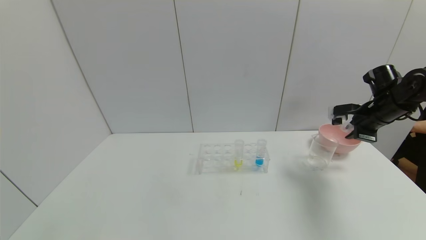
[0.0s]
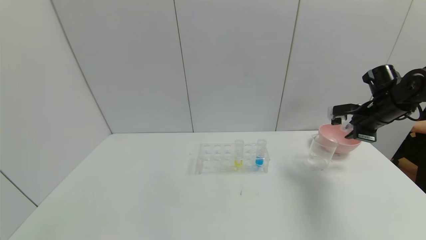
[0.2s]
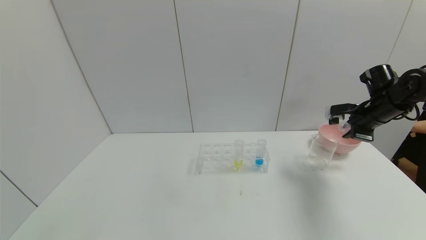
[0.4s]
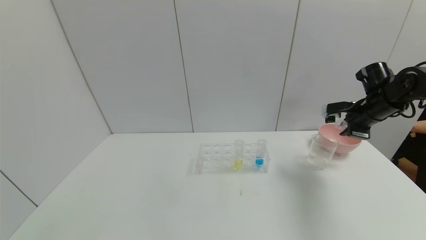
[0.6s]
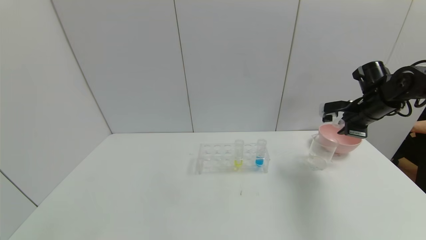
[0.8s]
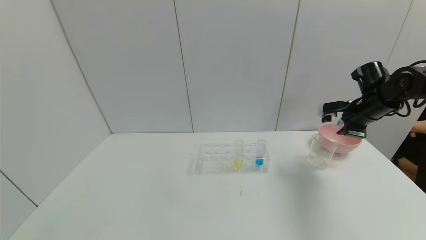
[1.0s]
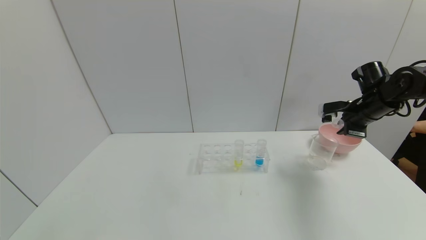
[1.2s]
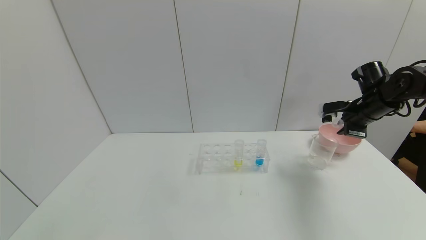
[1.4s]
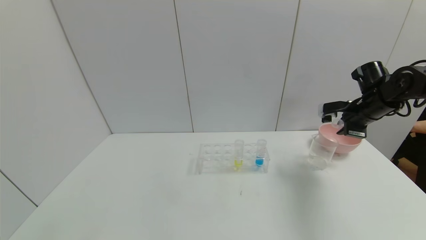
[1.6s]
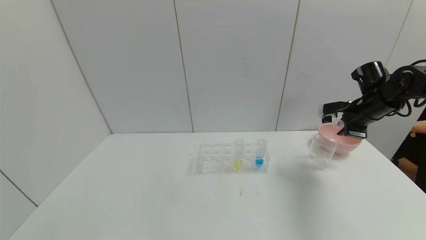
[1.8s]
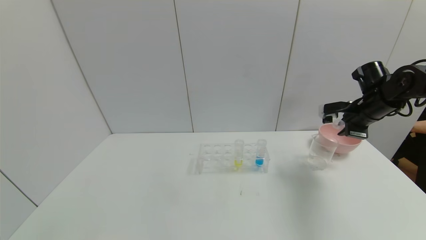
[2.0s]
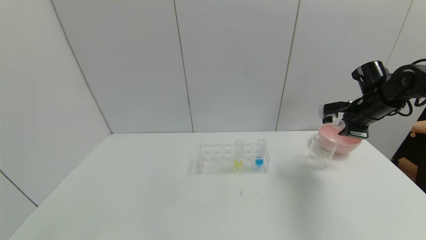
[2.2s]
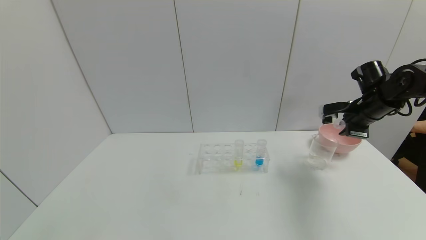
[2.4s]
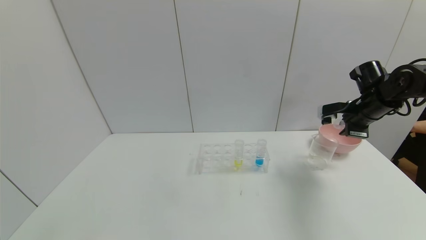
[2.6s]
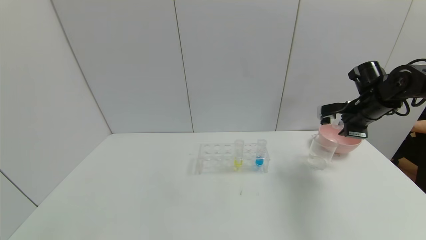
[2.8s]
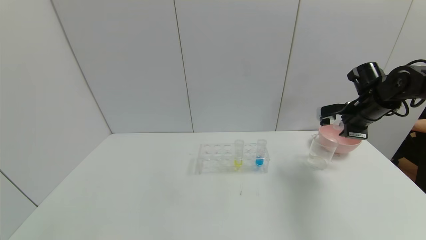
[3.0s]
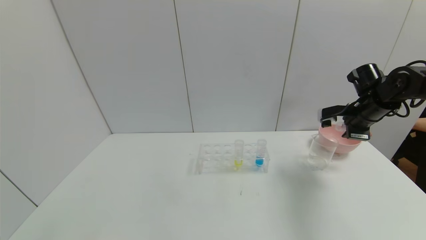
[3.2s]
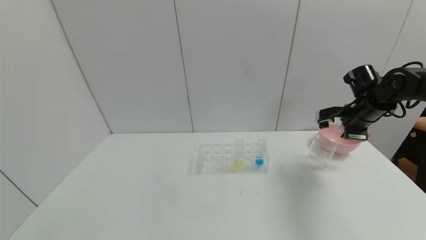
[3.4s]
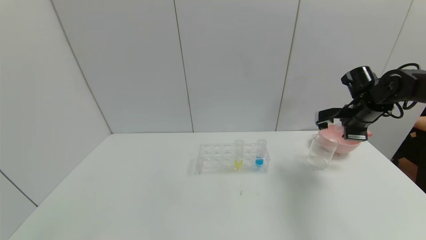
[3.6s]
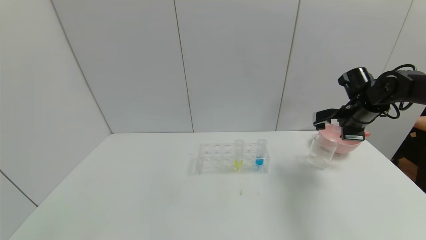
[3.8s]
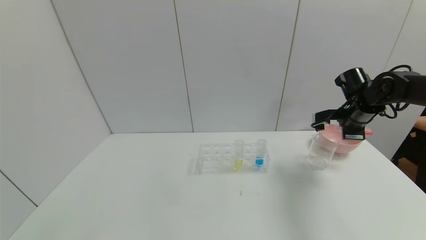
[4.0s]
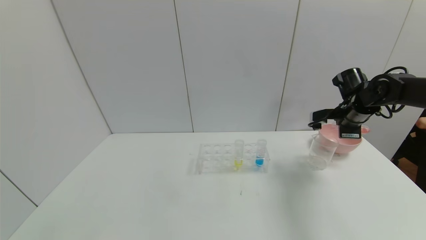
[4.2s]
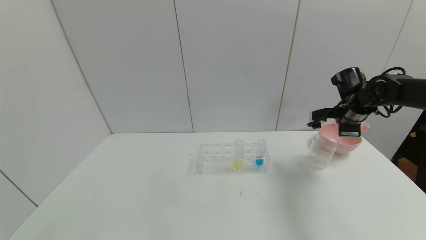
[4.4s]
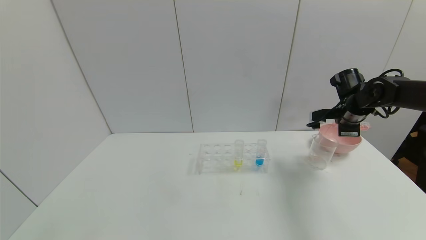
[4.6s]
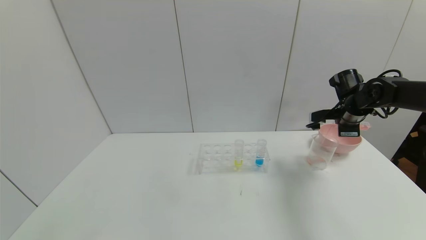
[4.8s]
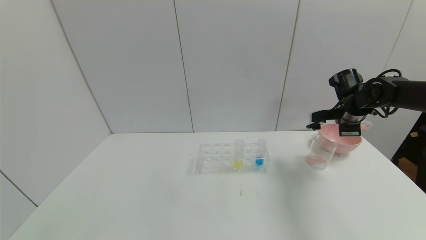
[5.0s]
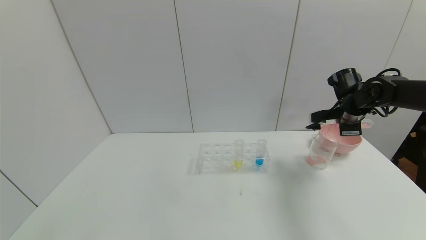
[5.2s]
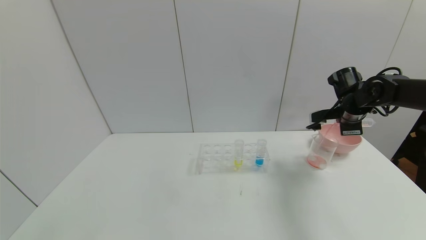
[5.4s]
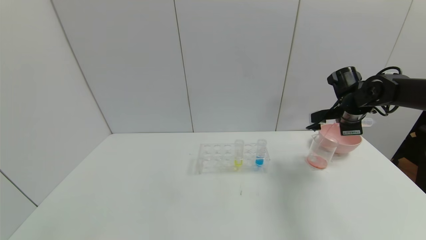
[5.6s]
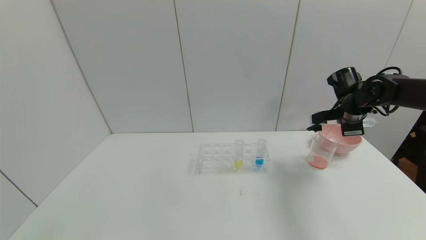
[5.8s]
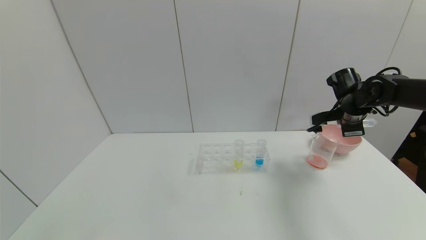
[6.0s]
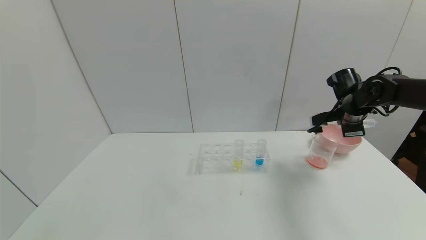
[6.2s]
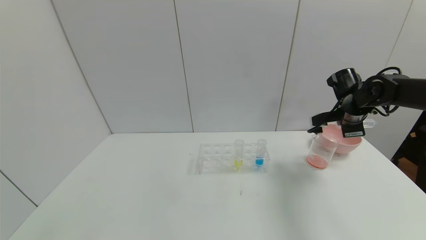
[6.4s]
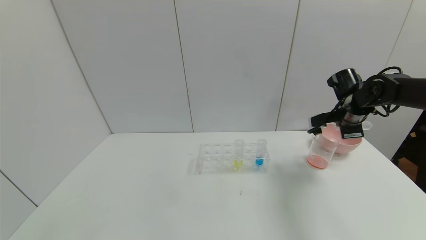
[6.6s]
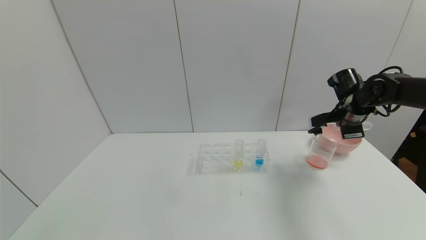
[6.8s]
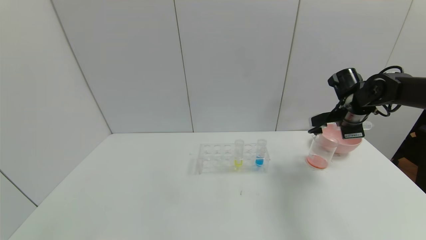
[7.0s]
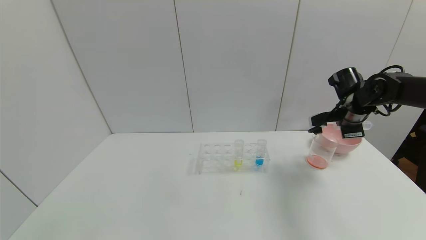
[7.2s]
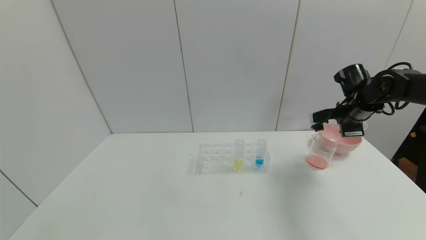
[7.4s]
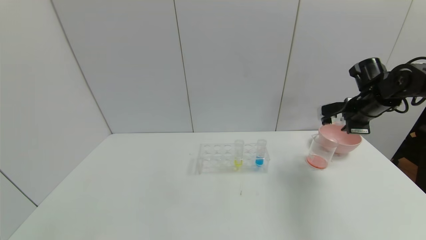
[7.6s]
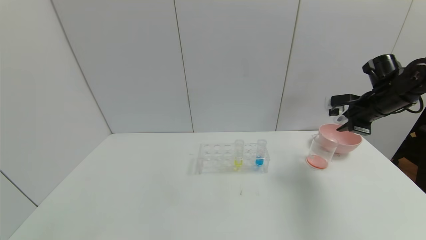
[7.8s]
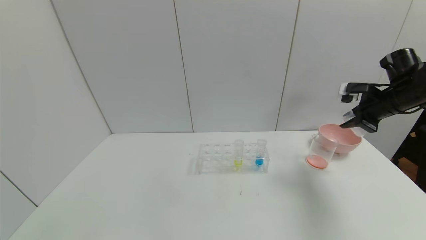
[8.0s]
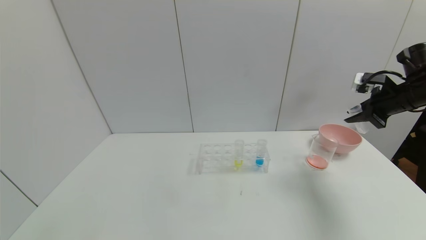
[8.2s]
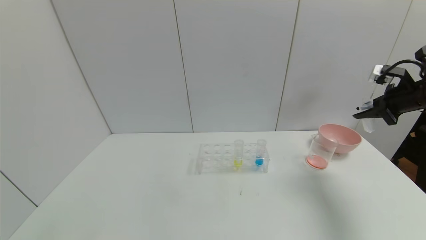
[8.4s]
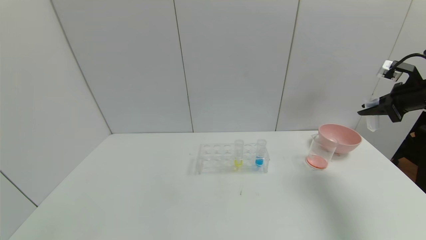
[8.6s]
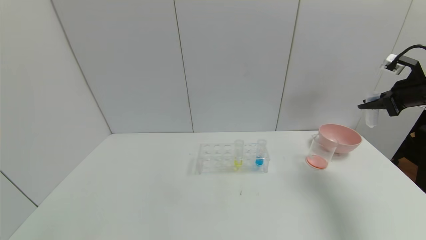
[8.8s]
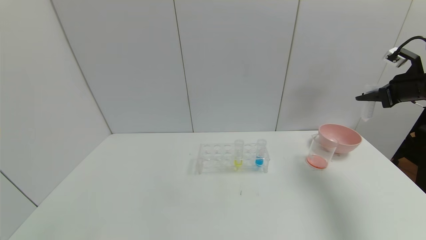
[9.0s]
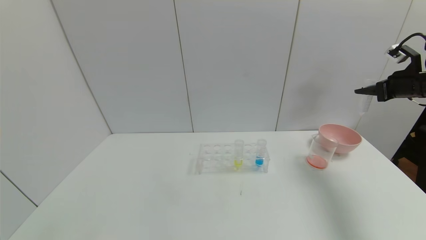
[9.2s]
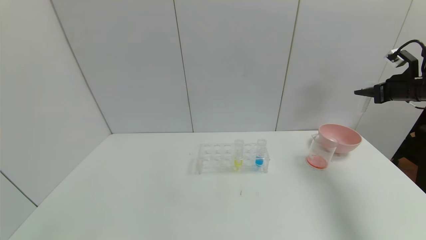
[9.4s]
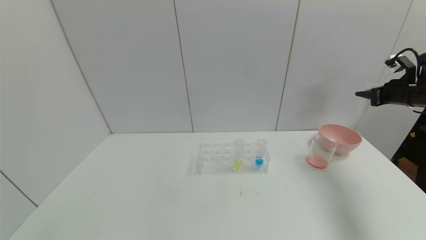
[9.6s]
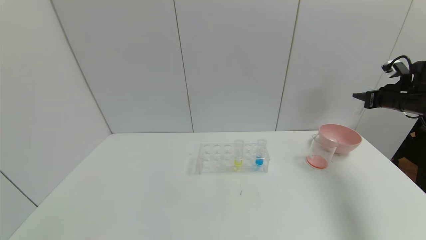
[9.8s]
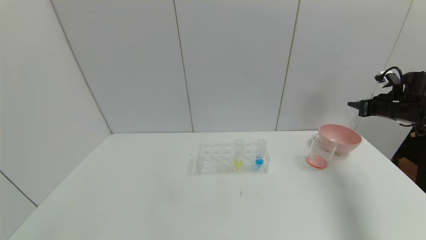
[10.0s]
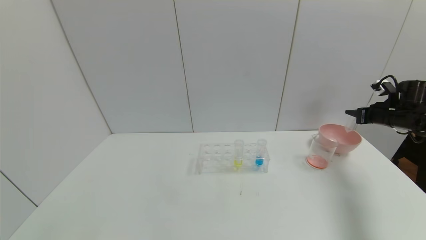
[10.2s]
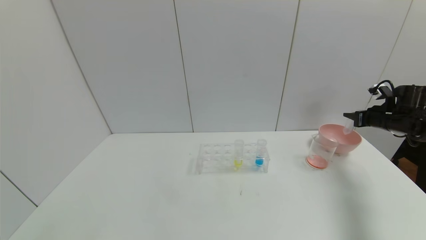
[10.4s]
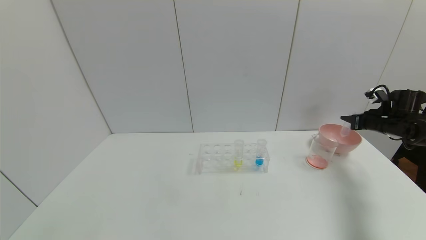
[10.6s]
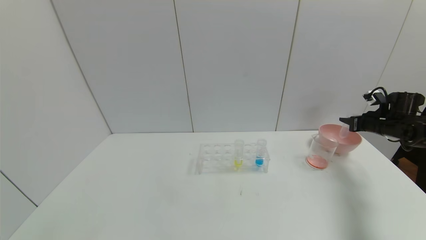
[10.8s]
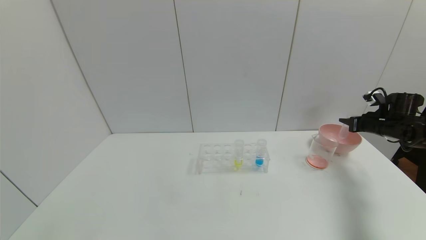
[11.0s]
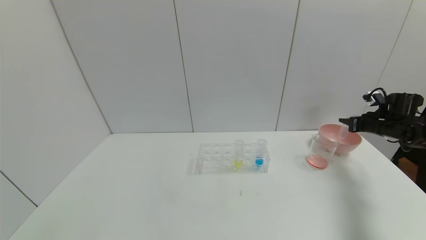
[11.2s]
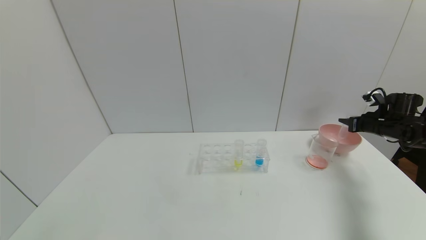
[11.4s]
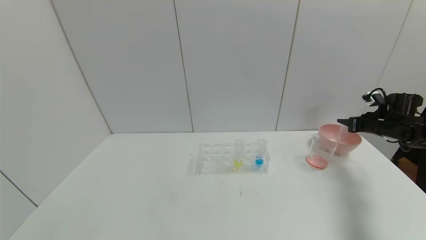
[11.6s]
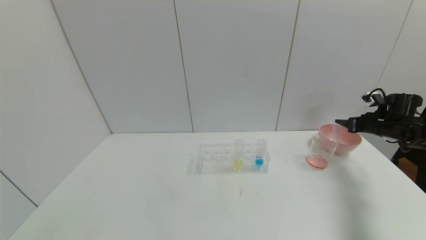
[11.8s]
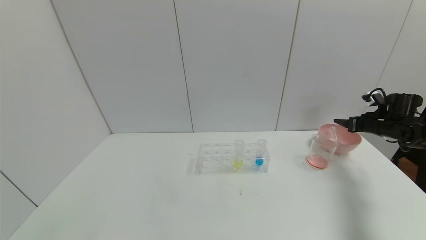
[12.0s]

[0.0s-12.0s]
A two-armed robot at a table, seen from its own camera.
Task of the whole recording: pick up the test tube with yellow pigment and the test tube with red pigment by grippers and pour them into the beaker.
Step, 0.0s to 7.4s: Pour the red reagent into the graduated cylinder with the right gripper.
0.0s to 3.0s: There are only small adjustments of the grippers.
3.0s to 4.4s: There are only small adjustments of the grippers.
4.4s to 6.0s: The grippers stay close to where they were, moving slightly.
7.6s to 9.0s: The right gripper goes approximately 10 cm to the right and upward.
9.0s to 10.4s: The right gripper travels downward and forward by approximately 15 cm.
10.4s to 12.0s: The right gripper opens its fingers.

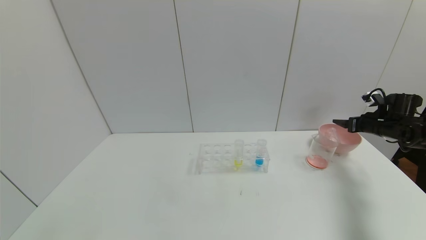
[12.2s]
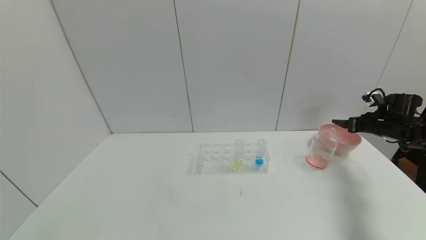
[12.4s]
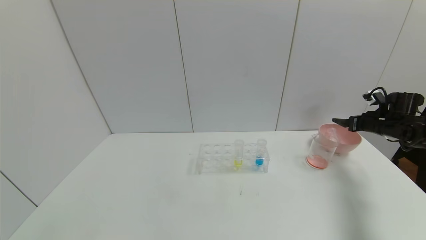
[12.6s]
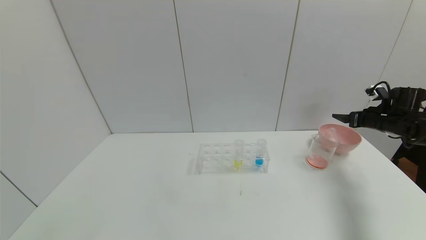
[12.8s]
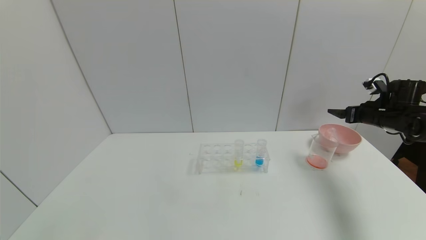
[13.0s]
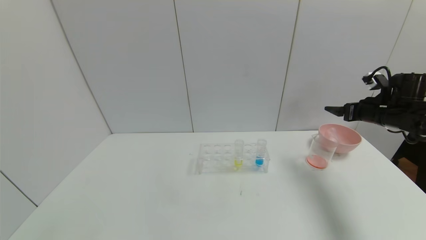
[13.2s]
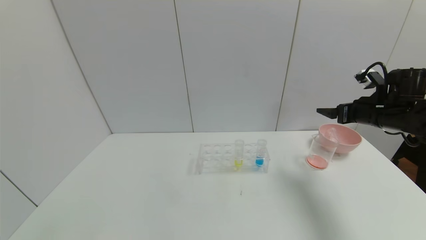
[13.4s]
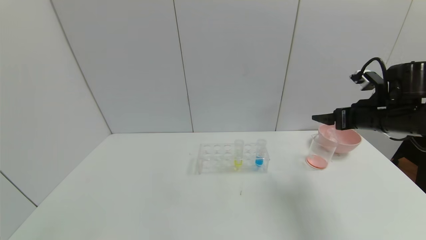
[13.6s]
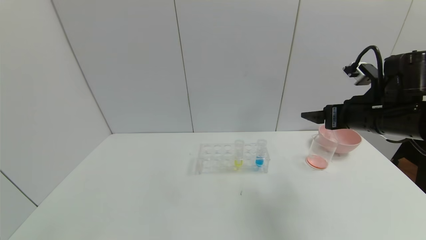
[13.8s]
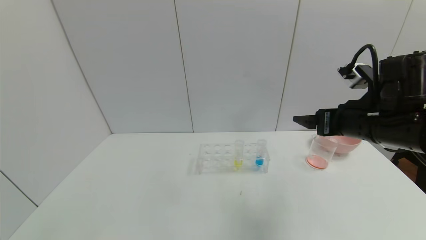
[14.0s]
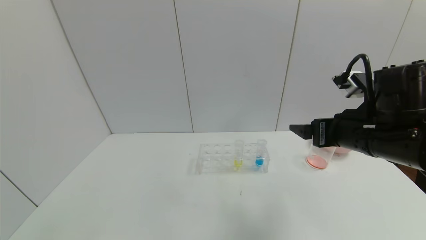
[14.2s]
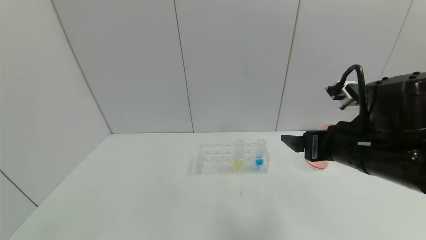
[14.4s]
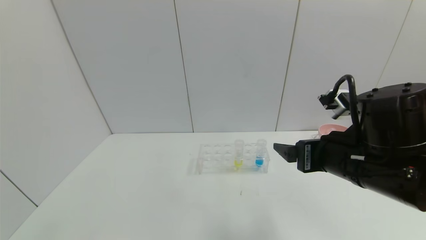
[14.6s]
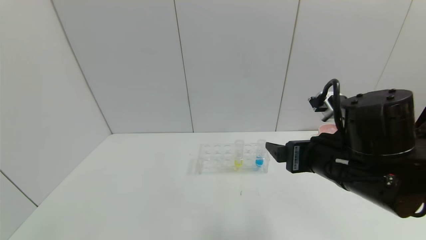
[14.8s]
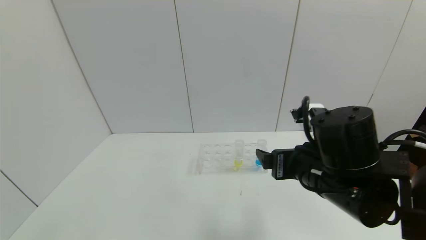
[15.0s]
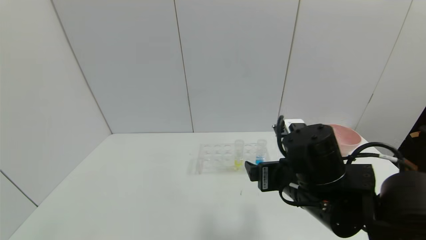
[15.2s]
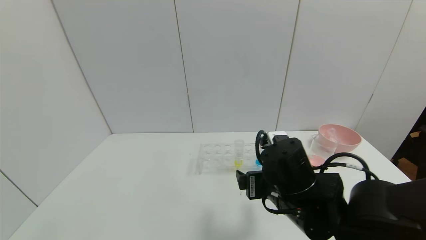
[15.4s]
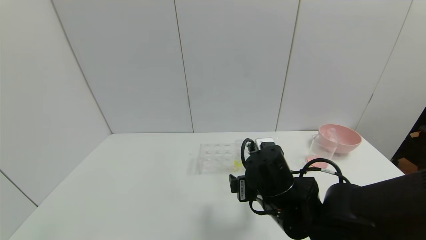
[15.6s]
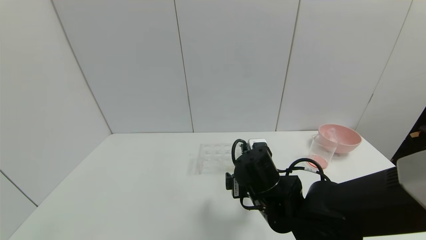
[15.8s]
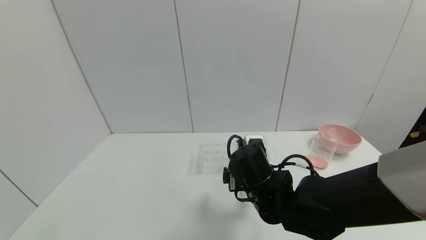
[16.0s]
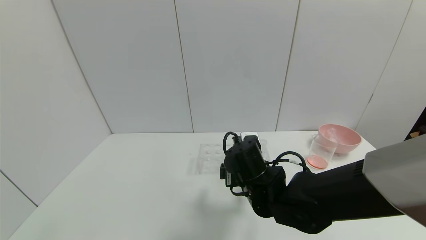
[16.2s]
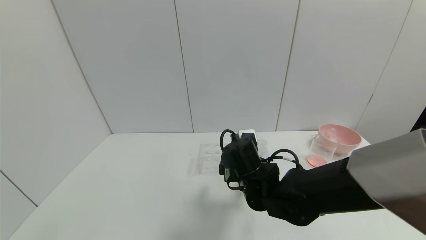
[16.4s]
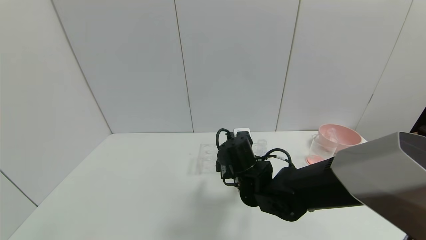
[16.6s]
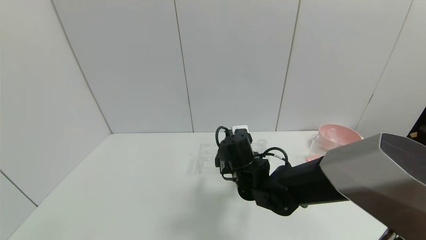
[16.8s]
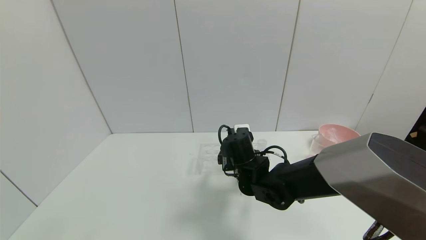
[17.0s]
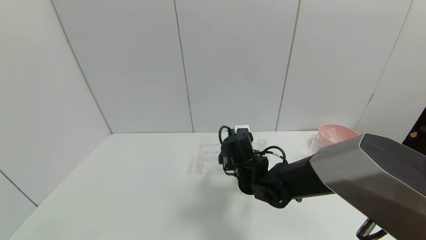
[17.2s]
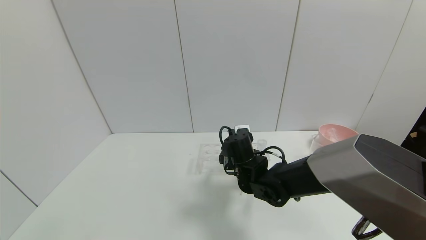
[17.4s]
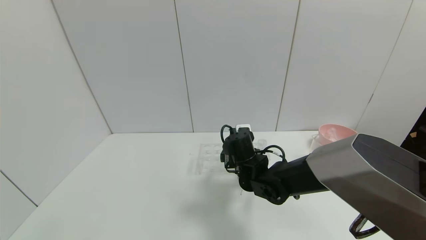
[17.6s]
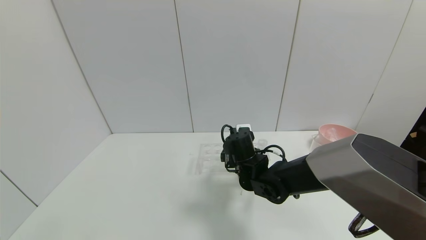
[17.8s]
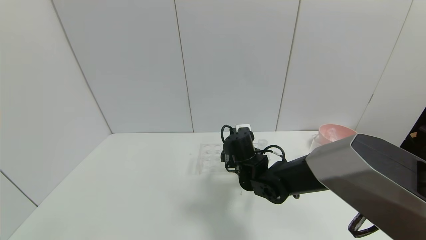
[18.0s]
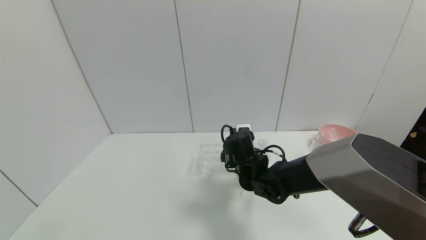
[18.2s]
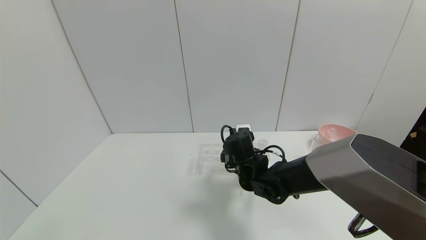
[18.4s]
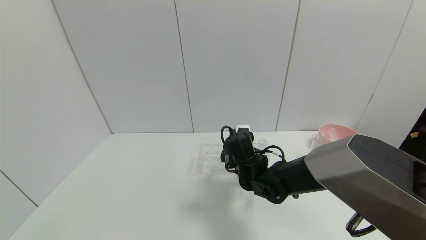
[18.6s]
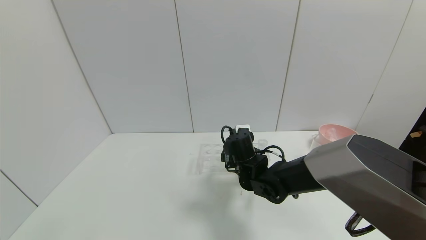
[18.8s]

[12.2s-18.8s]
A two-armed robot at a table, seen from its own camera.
Task of the whole recording: pick up the test tube with yellow pigment and the test tube with red pigment by grippers and pour them into the beaker.
12.2s to 13.8s: The right gripper heads to the left, backward and upward, covering about 30 cm.
13.8s to 15.4s: The right gripper heads to the left, downward and backward, covering roughly 20 cm.
15.4s to 17.2s: The right gripper shifts approximately 15 cm forward, downward and to the left.
17.2s to 18.8s: The grippers move only a little.
